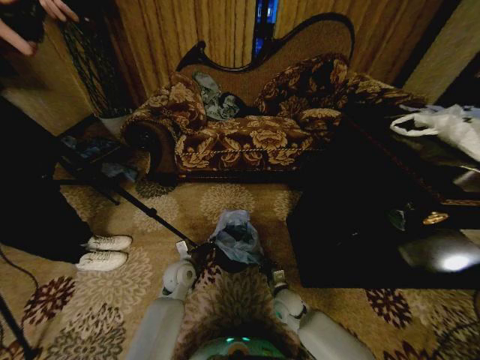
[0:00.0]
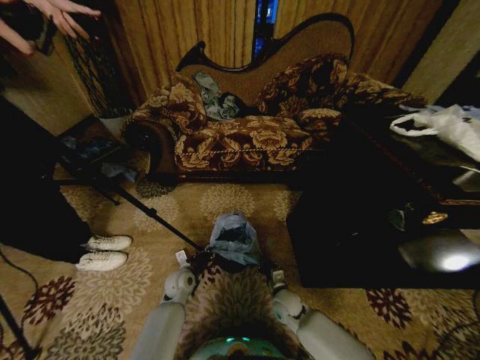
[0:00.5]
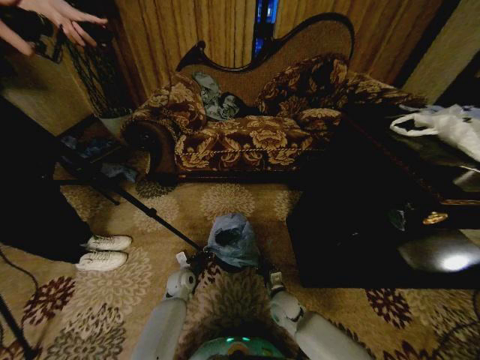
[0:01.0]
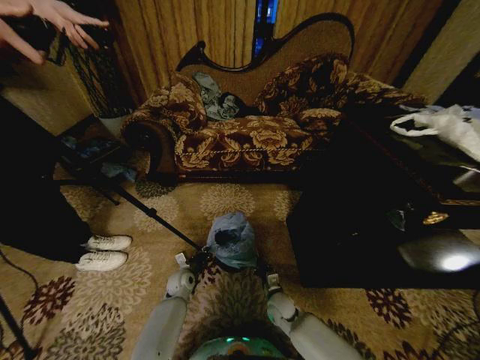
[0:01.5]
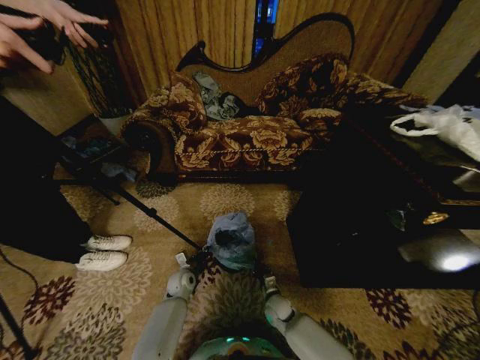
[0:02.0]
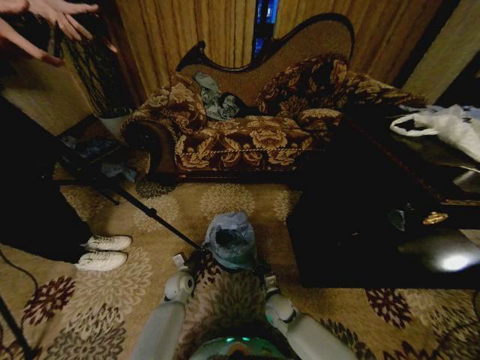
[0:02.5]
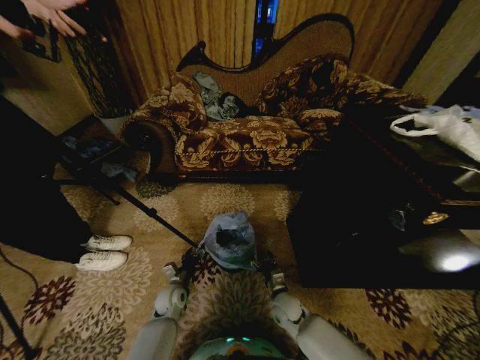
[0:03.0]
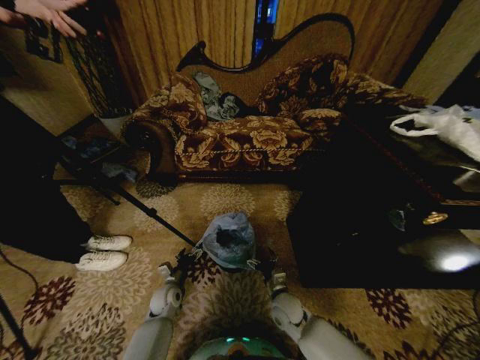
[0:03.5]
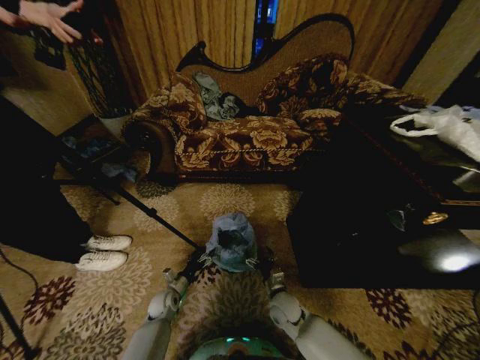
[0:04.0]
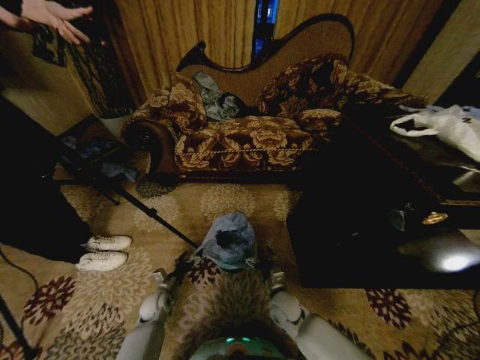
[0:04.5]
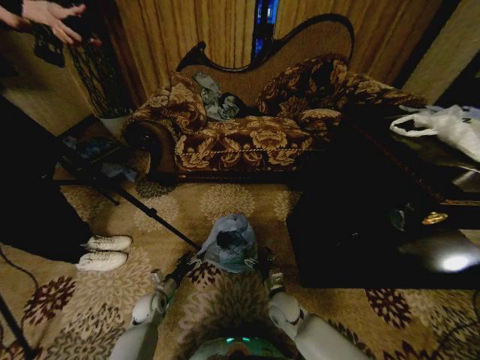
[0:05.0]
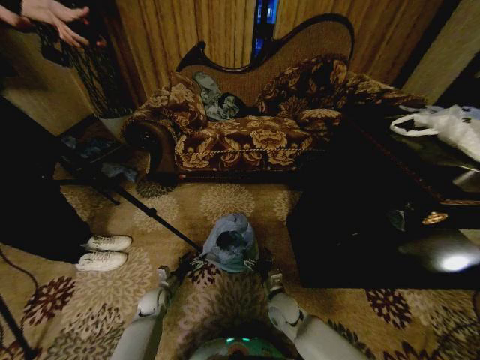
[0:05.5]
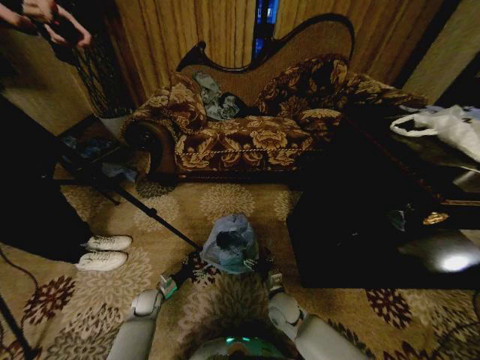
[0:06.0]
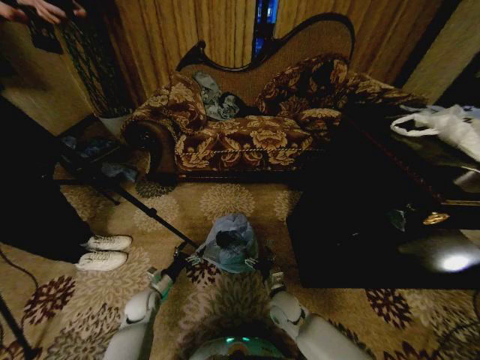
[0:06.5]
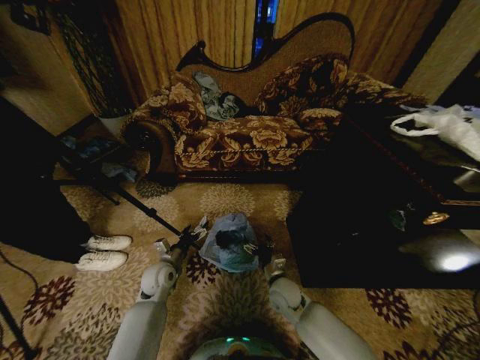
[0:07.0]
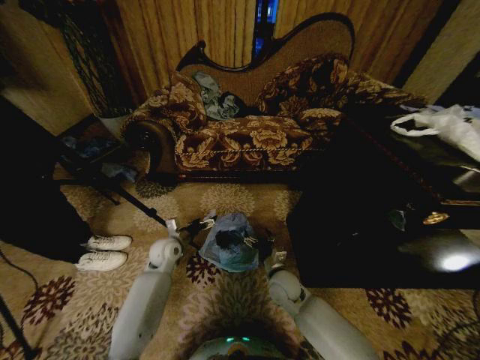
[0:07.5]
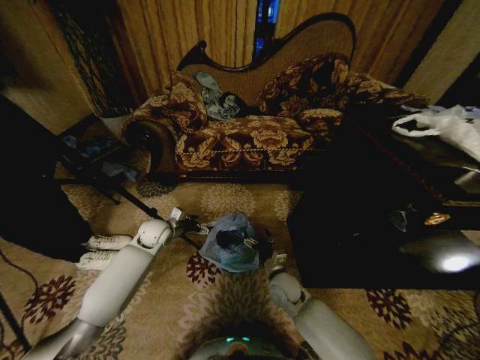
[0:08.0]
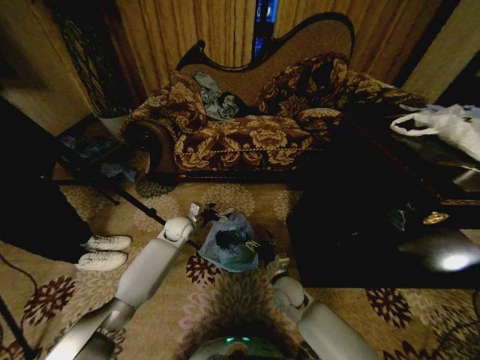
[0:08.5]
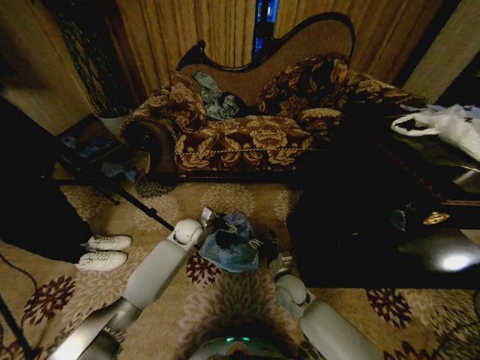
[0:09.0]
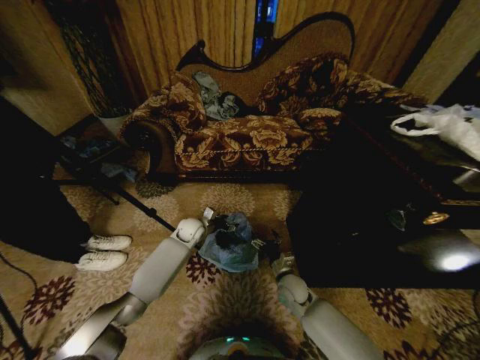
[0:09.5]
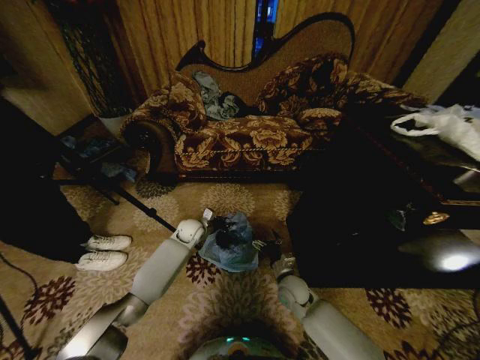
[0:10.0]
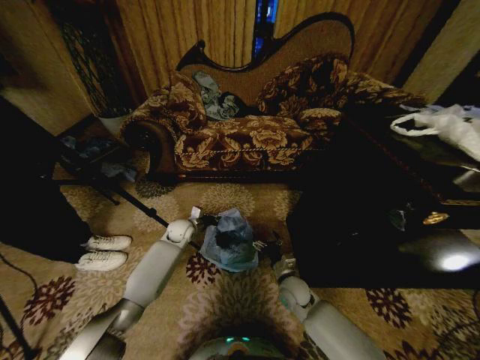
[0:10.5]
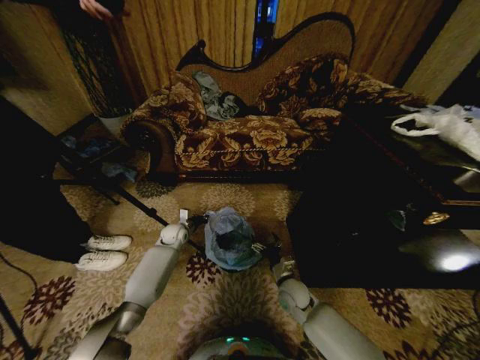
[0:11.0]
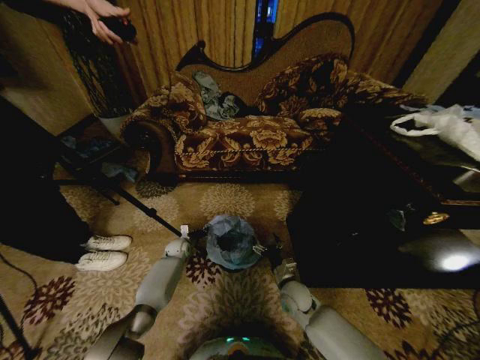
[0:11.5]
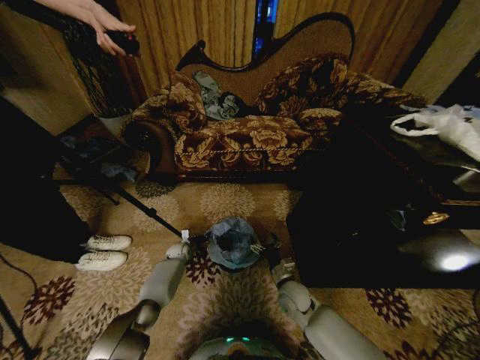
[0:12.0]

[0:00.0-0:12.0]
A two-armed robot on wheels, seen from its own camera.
Task of the whole recording: Place a garbage bag over the trash bin.
0.0 to 2.0 s: The left gripper moves downward, some 10 cm. The right gripper shifts some 5 cm downward.
2.0 to 4.0 s: The left gripper goes approximately 10 cm backward and to the left, and opens up, while the right gripper moves upward, roughly 10 cm, and opens up.
4.0 to 6.0 s: The left gripper moves to the left, some 5 cm.
6.0 to 8.0 s: The right gripper travels upward by about 5 cm; the left gripper is displaced upward and forward by approximately 25 cm.
8.0 to 10.0 s: The left gripper shifts roughly 15 cm to the right, downward and forward, and closes its fingers.
10.0 to 12.0 s: The left gripper travels downward and to the left by roughly 20 cm, and closes.

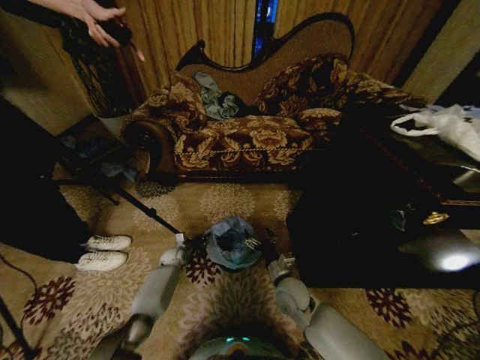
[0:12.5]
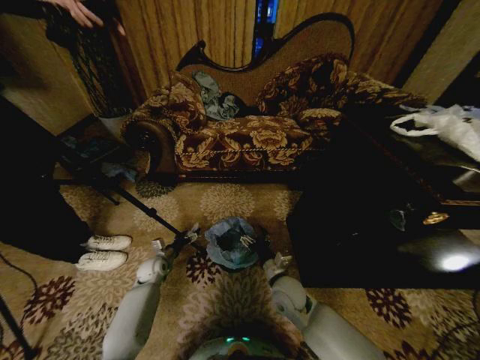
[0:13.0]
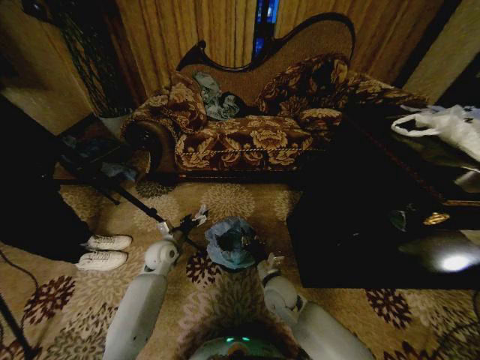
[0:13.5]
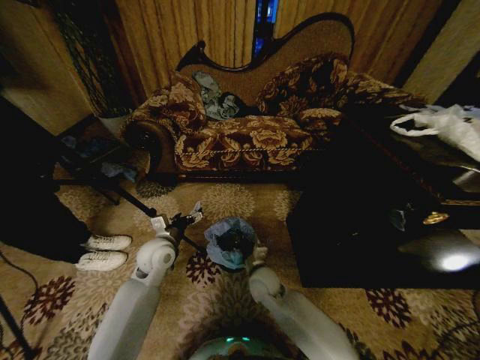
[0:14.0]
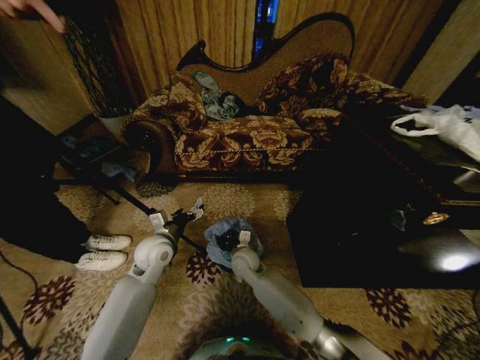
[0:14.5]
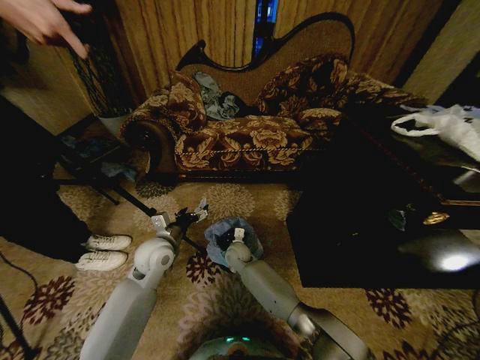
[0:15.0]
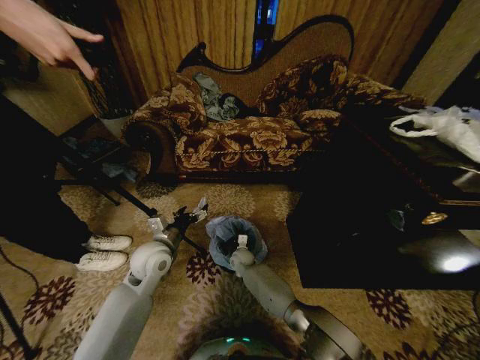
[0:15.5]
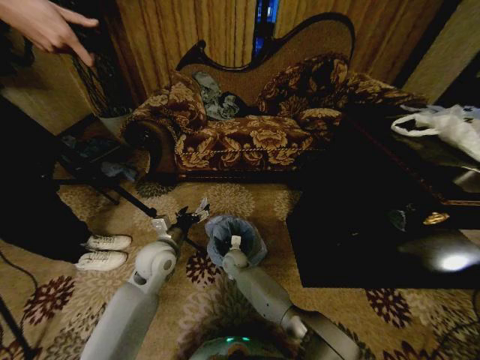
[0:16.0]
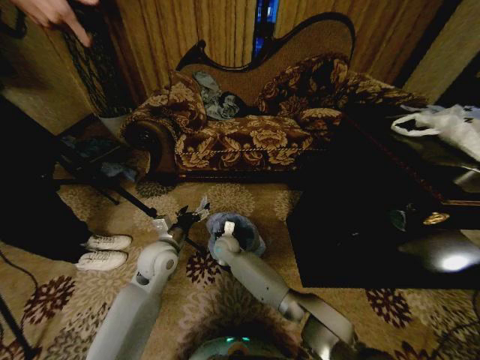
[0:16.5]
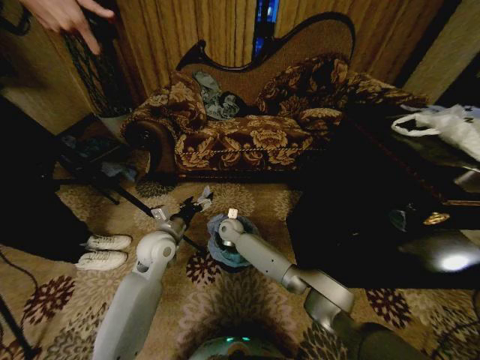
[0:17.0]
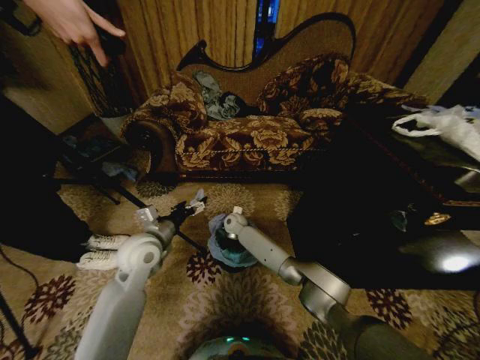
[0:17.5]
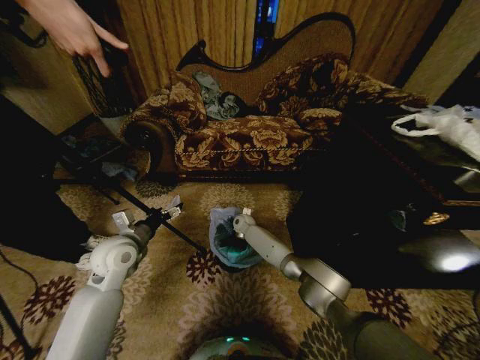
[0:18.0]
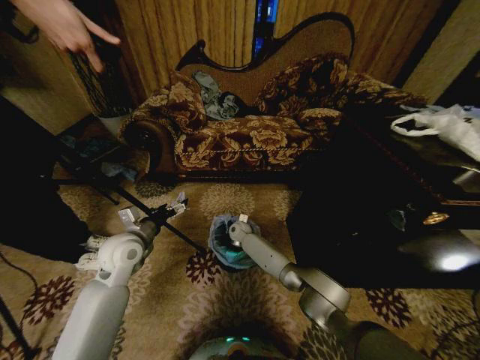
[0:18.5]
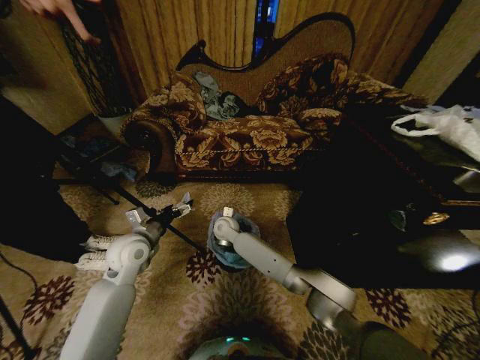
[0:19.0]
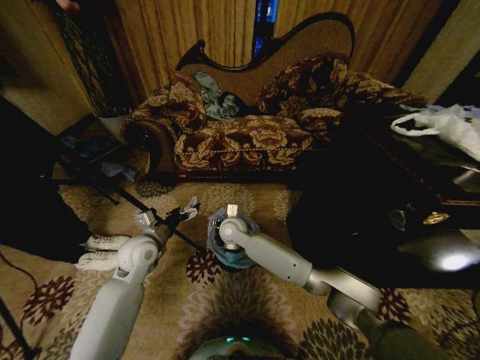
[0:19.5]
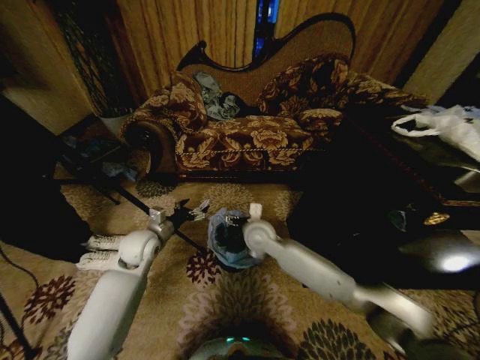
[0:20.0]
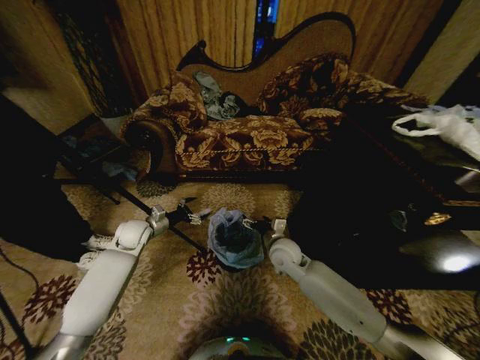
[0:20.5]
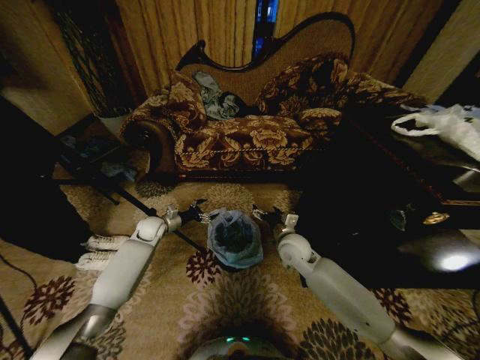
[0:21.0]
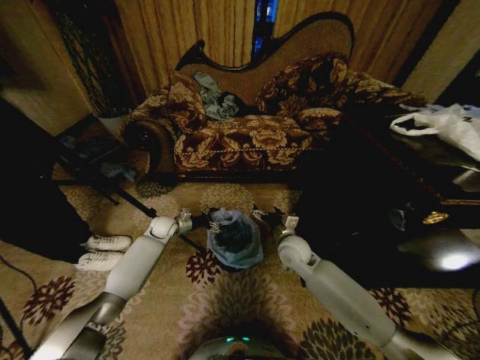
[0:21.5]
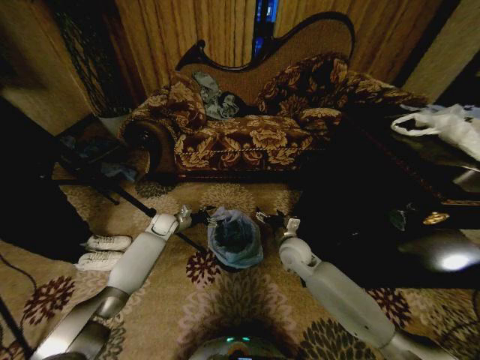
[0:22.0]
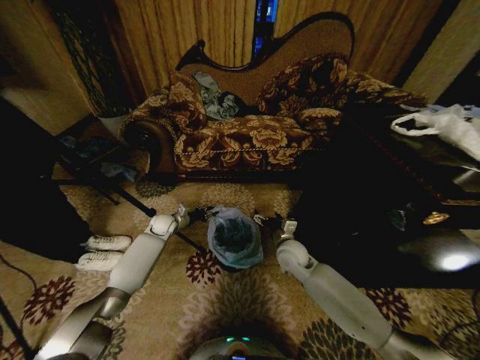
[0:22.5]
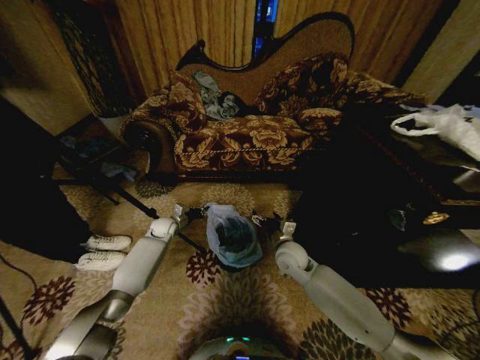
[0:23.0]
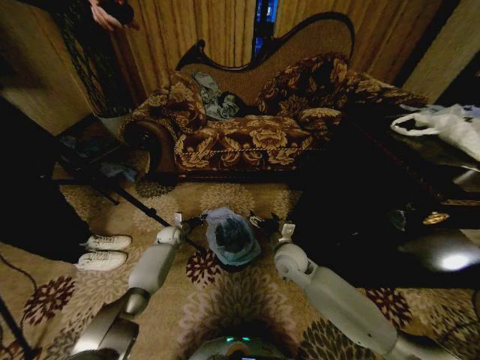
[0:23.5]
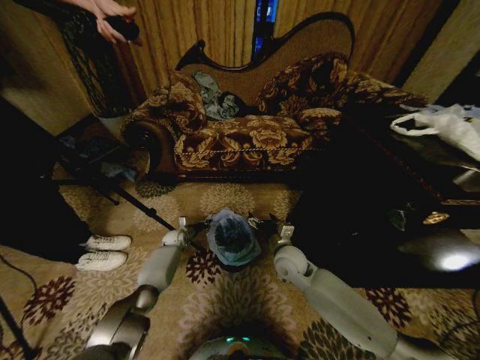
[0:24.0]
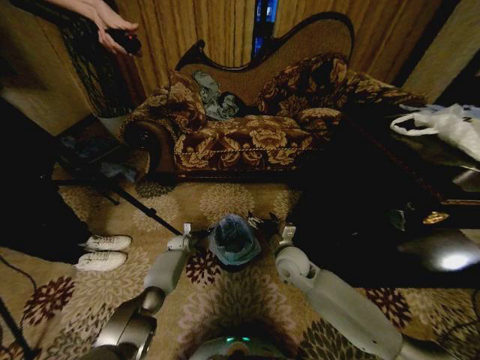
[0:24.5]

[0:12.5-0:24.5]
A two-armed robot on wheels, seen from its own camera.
Task of the whole recording: Place a garbage bag over the trash bin.
12.5 to 14.5 s: The right gripper is displaced to the left and forward by about 15 cm, and closes. The left gripper goes about 30 cm upward and backward, and opens up.
14.5 to 16.5 s: The right gripper shifts some 10 cm to the left and forward, and reaches approximately 10 cm downward, then returns.
16.5 to 18.5 s: The right gripper heads forward, covering about 10 cm. The left gripper moves to the left, roughly 10 cm.
18.5 to 20.5 s: The right gripper travels backward, to the right and upward by roughly 25 cm, and opens up; the left gripper shifts about 10 cm forward and downward.
20.5 to 22.5 s: The left gripper heads forward and downward, covering about 10 cm, and closes.
22.5 to 24.5 s: The left gripper travels downward by about 15 cm, and closes up.

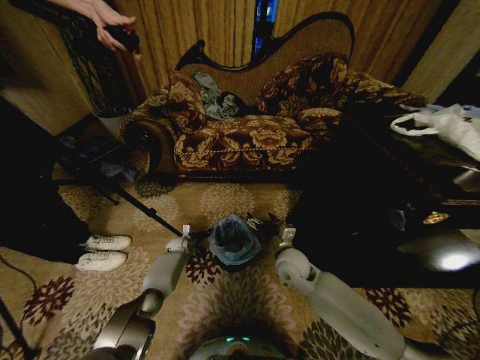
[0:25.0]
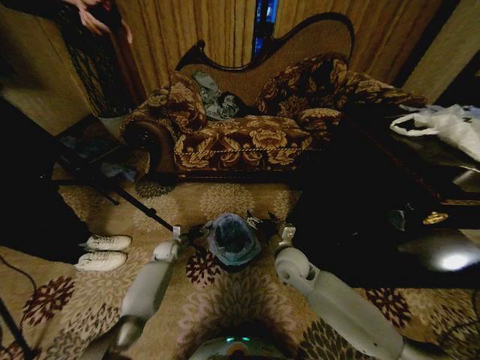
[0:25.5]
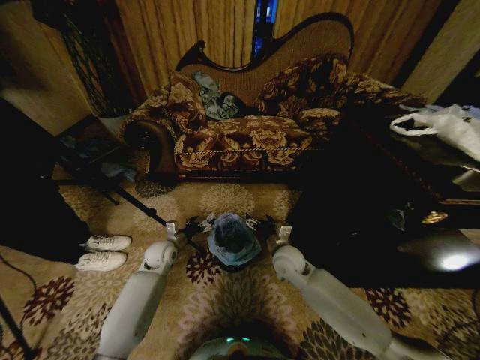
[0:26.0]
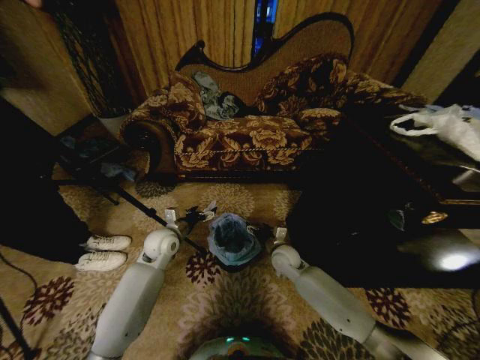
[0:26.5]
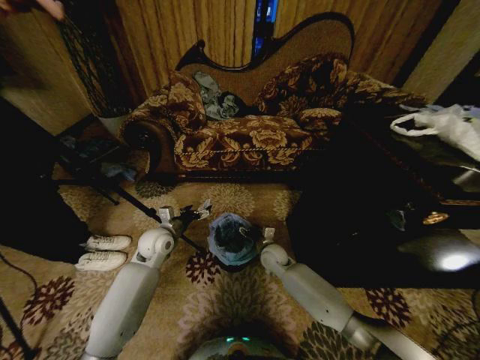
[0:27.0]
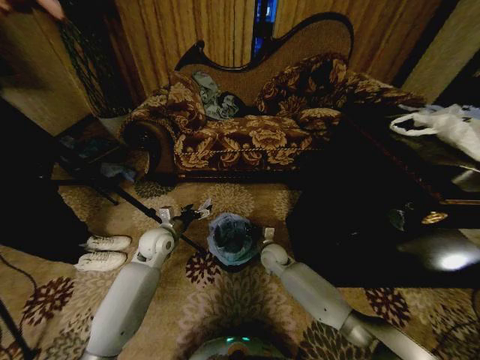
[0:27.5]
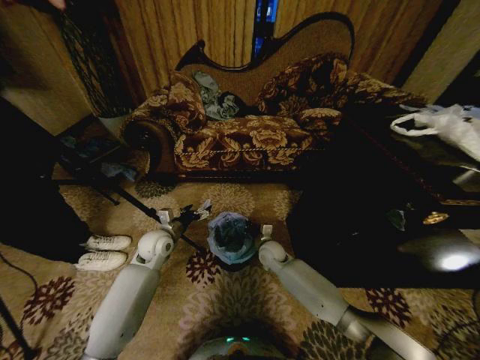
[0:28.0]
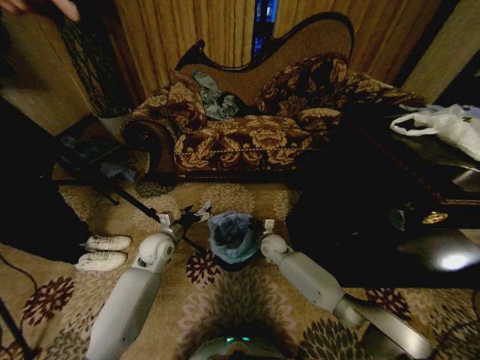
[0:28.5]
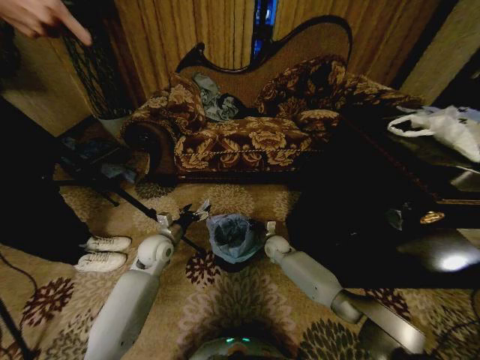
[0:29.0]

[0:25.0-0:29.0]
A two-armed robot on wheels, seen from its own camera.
Task of the whole recording: Place a garbage bag over the trash bin.
25.0 to 27.0 s: The right gripper travels downward and forward by roughly 10 cm. Meanwhile the left gripper heads upward and backward, covering roughly 25 cm, and opens its fingers.
27.0 to 29.0 s: The right gripper travels forward by approximately 5 cm, and closes.
